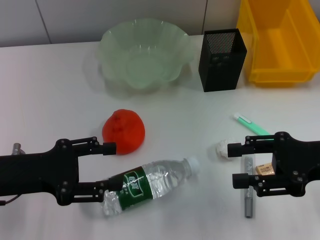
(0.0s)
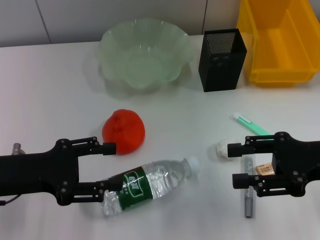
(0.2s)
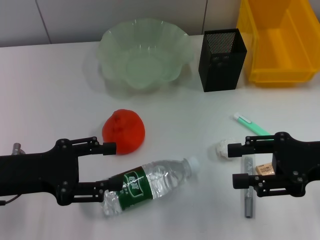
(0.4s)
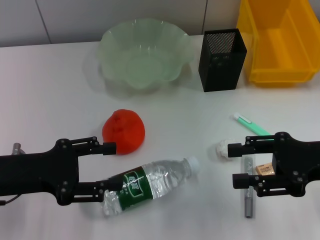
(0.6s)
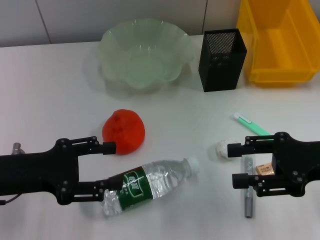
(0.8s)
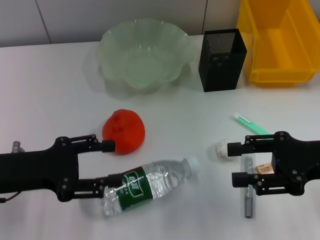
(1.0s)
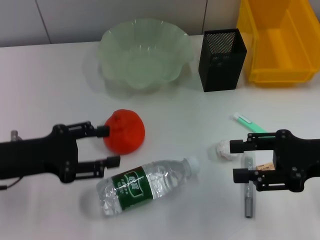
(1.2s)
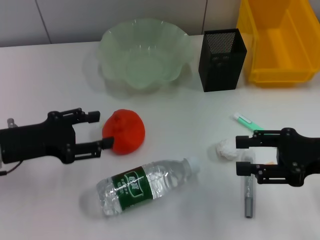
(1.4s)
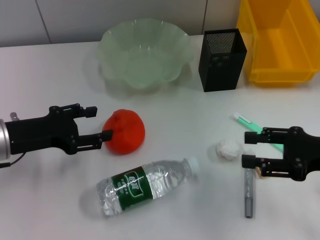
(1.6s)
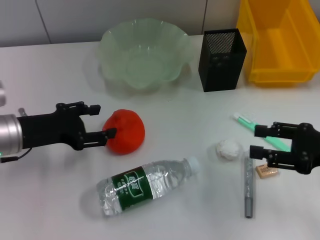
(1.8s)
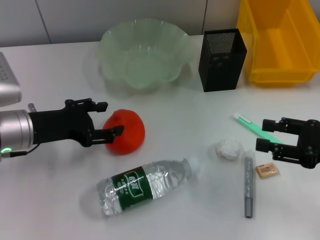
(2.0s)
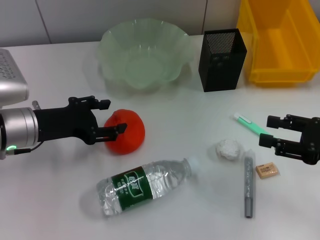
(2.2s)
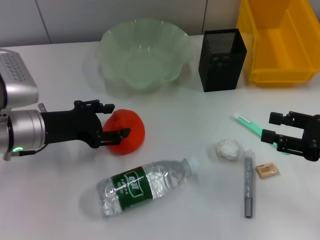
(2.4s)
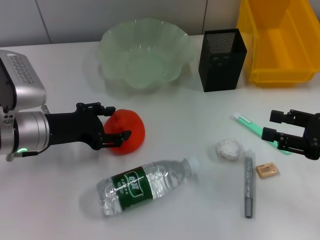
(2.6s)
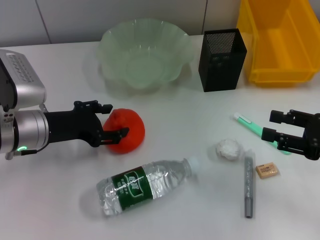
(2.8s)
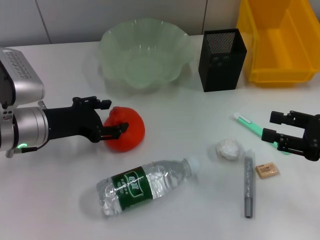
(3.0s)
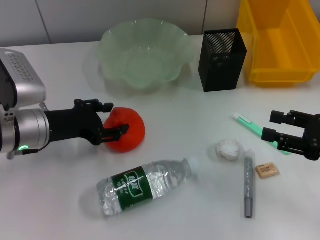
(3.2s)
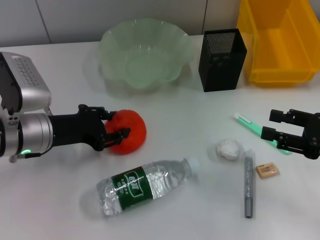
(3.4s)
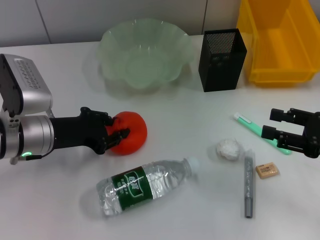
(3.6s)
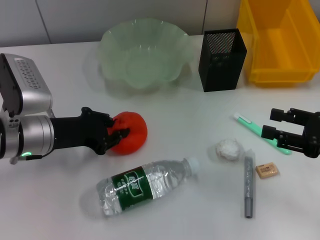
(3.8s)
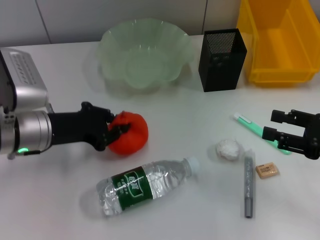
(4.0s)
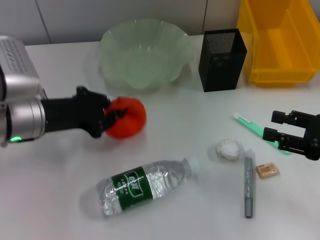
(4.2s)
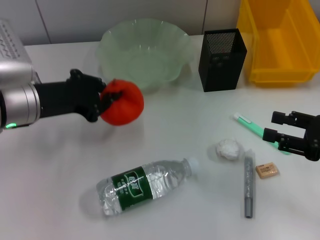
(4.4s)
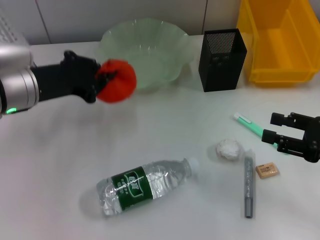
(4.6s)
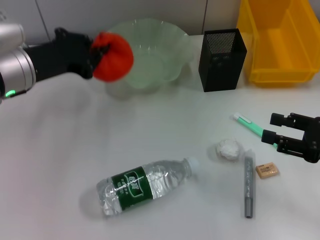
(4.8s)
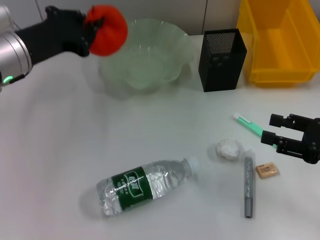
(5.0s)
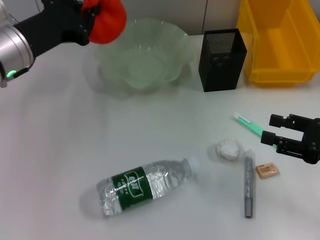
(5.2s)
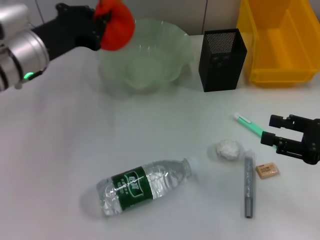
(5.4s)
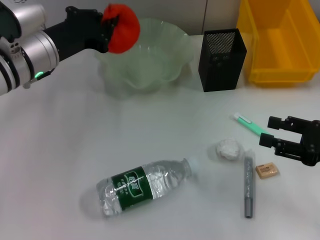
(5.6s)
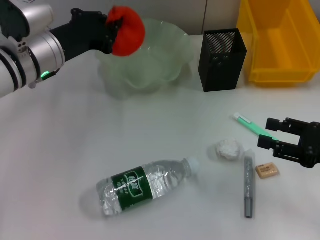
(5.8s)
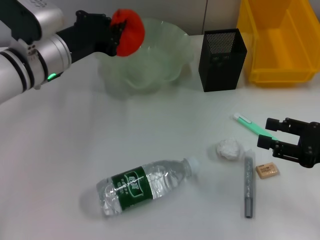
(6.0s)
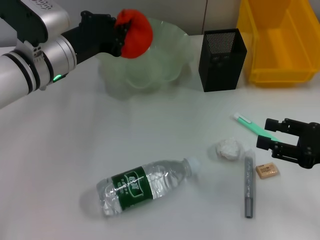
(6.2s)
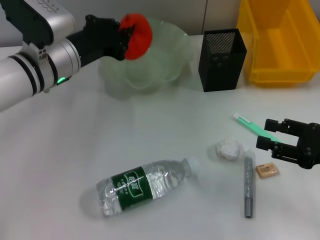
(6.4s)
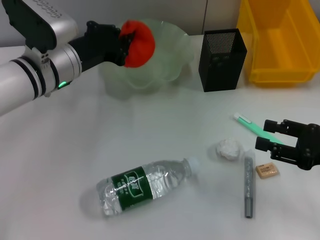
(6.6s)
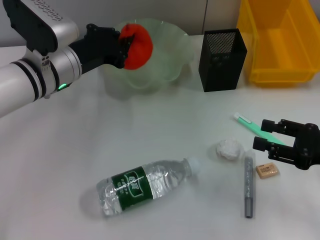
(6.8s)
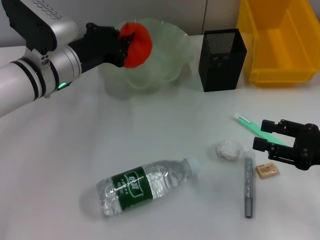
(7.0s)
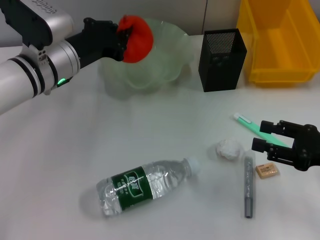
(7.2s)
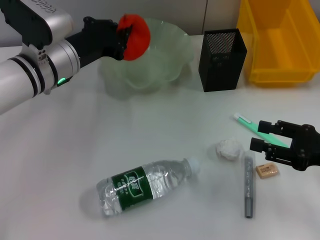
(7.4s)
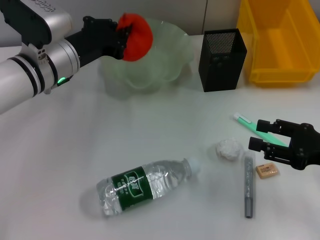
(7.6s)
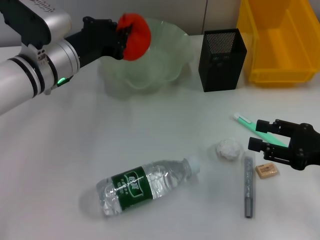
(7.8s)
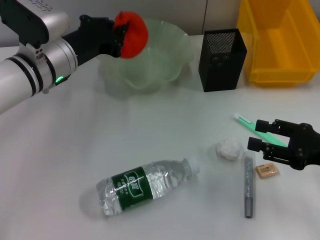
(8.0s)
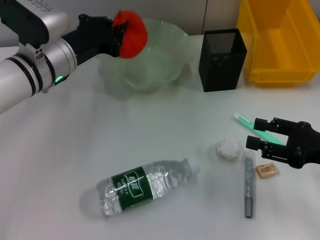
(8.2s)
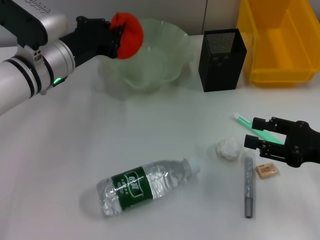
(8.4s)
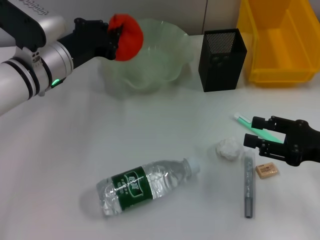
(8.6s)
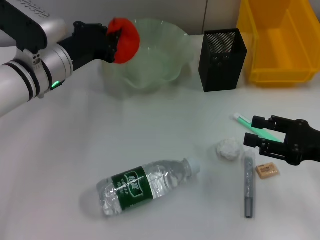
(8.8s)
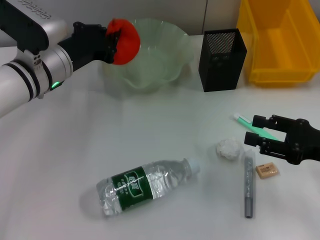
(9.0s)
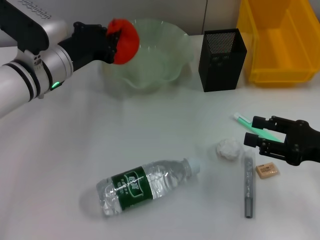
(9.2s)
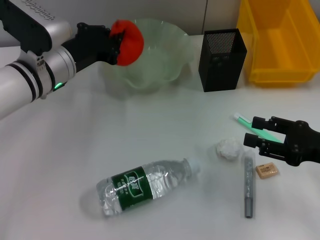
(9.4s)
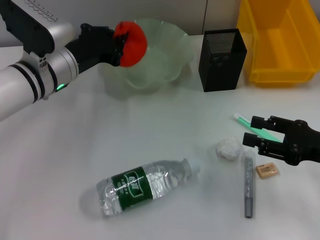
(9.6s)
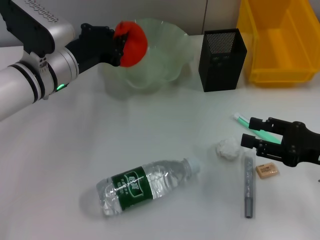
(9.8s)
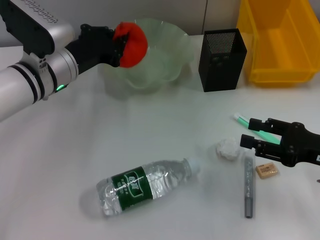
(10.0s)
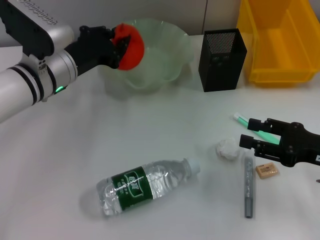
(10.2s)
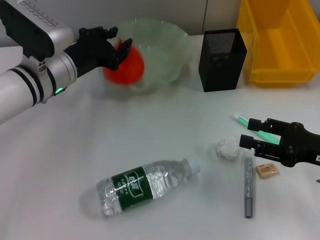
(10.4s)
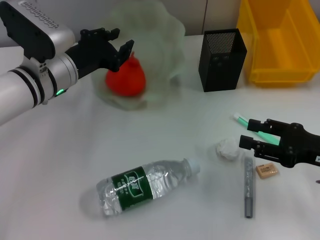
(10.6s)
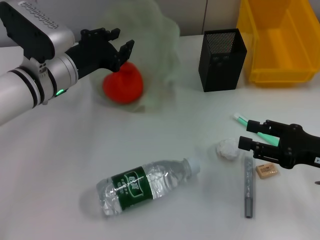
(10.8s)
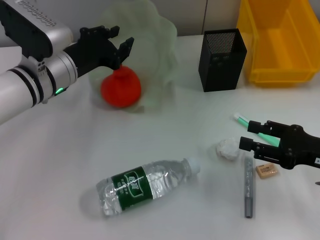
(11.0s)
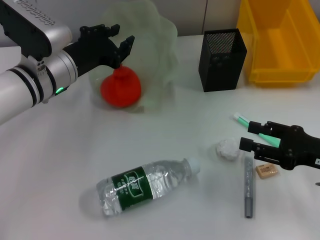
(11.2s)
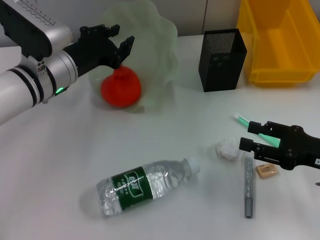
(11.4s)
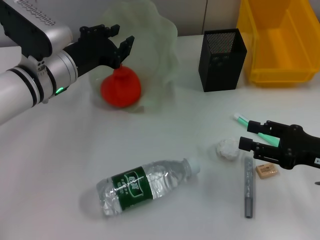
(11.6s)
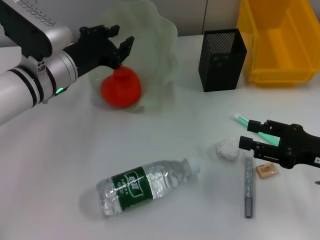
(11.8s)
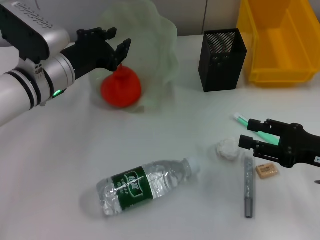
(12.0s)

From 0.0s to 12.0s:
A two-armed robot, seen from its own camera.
Step, from 0.0s to 3.8s: Grab the orange with the left hand.
Step, from 4.0s to 10.8s: Place the orange into the fruit bowl with the left hand.
From 0.0s to 1.6s: The left gripper heads forward, covering roughly 5 cm.
From 1.6s to 3.0s: The left gripper changes place by some 5 cm.
From 3.0s to 4.4s: The left gripper closes up.
From 4.4s to 6.0s: The left gripper moves forward, roughly 5 cm.
From 6.0s to 9.0s: There are only small adjustments of the grippers.
From 9.0s to 12.0s: Neither gripper changes place.

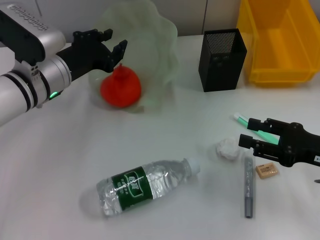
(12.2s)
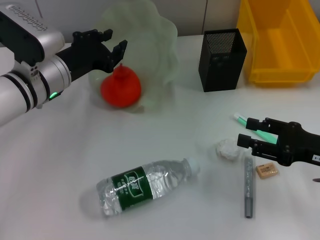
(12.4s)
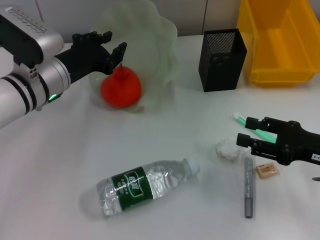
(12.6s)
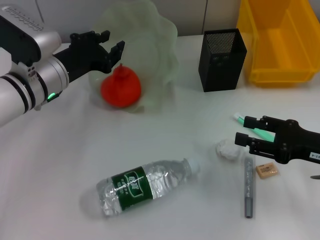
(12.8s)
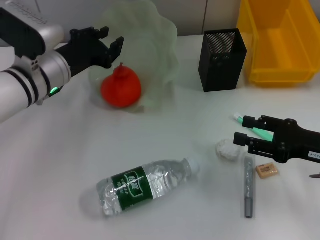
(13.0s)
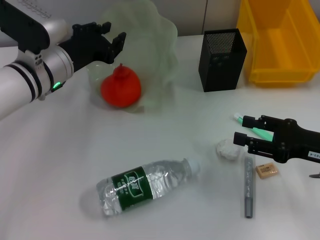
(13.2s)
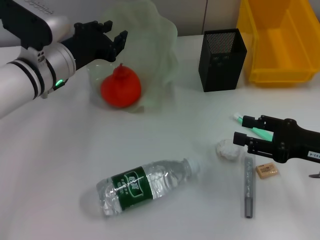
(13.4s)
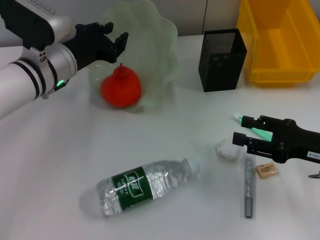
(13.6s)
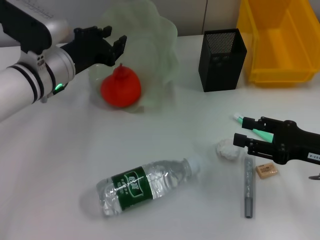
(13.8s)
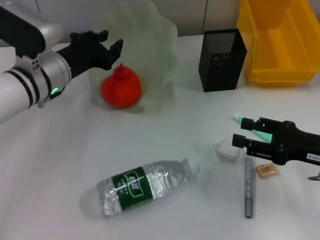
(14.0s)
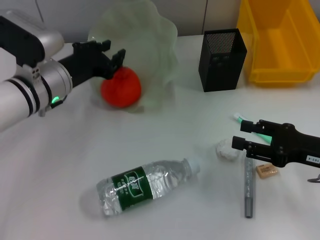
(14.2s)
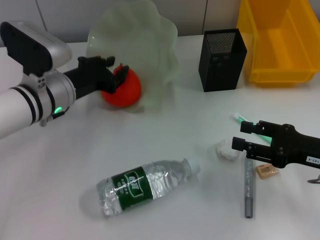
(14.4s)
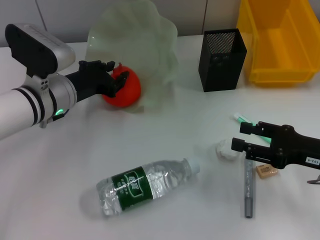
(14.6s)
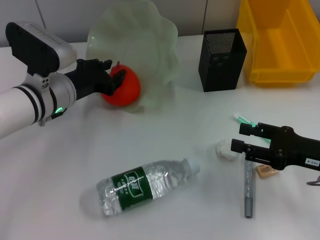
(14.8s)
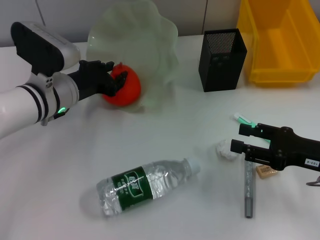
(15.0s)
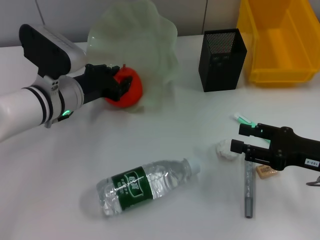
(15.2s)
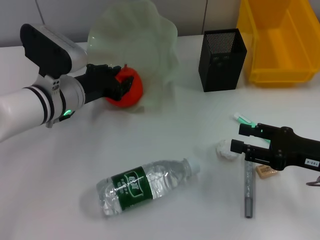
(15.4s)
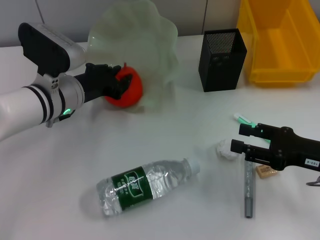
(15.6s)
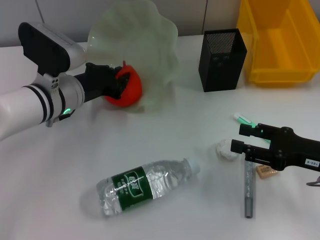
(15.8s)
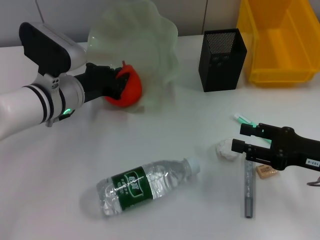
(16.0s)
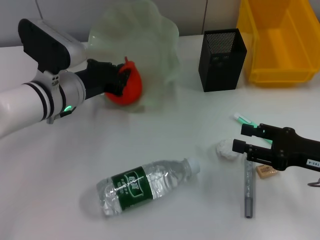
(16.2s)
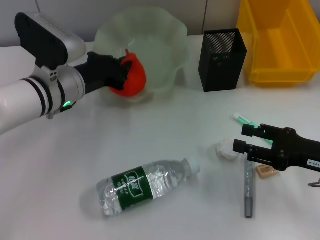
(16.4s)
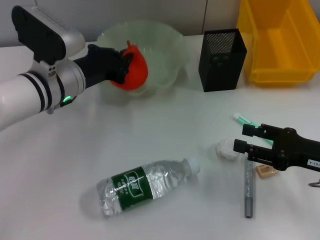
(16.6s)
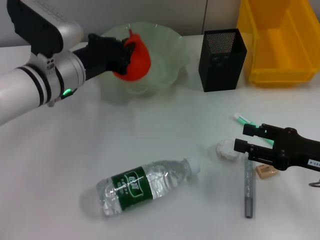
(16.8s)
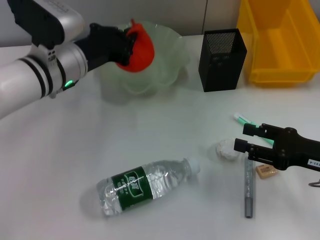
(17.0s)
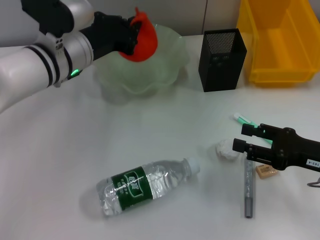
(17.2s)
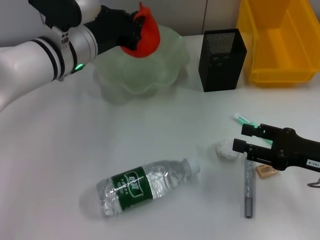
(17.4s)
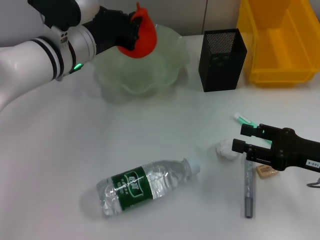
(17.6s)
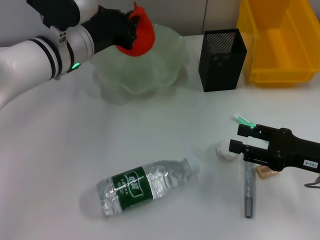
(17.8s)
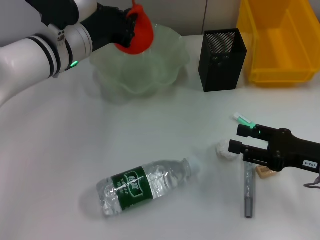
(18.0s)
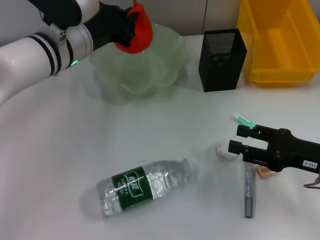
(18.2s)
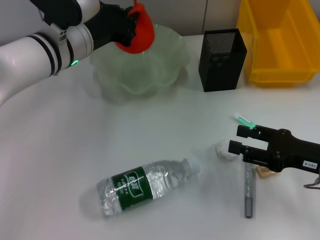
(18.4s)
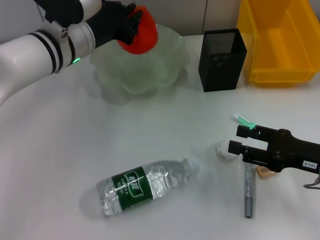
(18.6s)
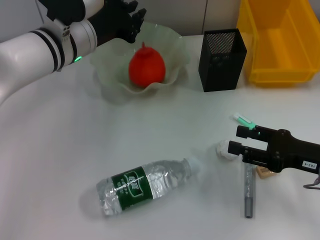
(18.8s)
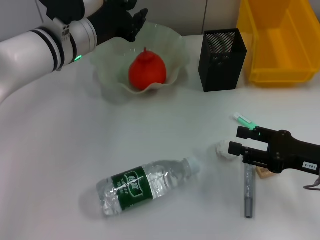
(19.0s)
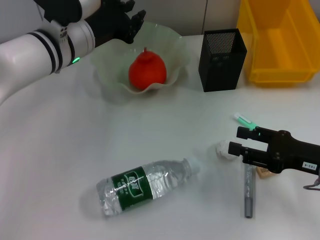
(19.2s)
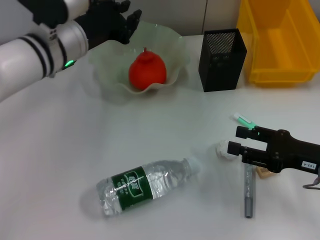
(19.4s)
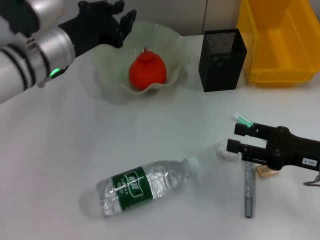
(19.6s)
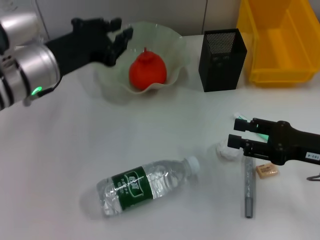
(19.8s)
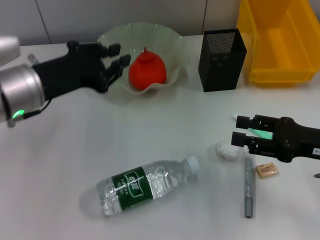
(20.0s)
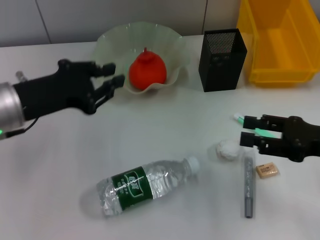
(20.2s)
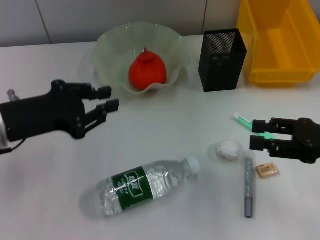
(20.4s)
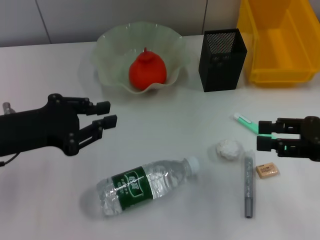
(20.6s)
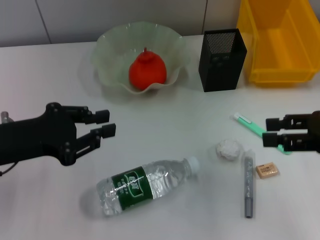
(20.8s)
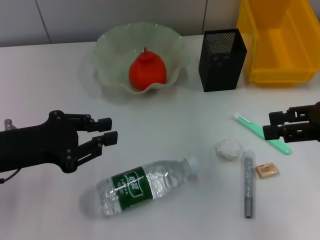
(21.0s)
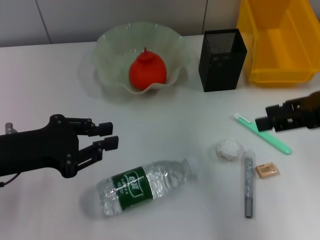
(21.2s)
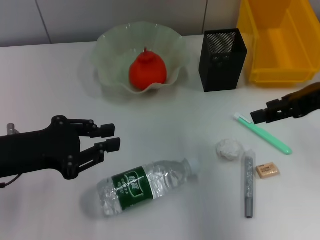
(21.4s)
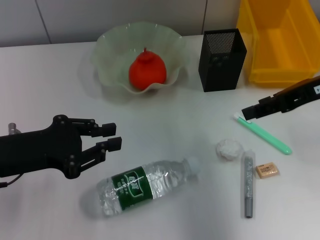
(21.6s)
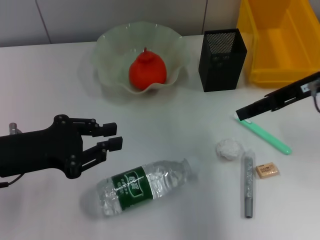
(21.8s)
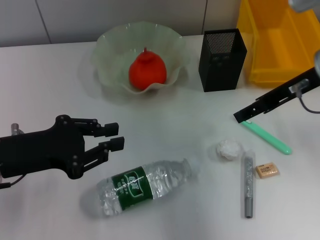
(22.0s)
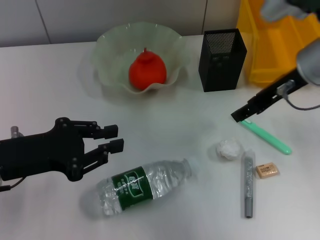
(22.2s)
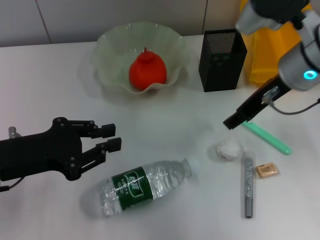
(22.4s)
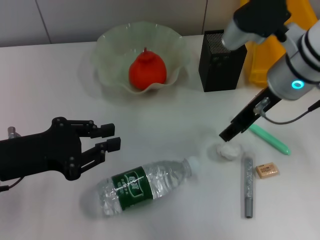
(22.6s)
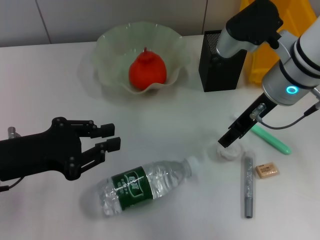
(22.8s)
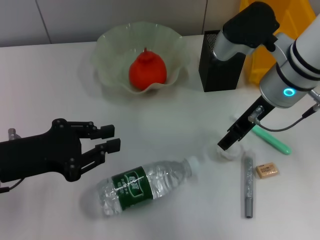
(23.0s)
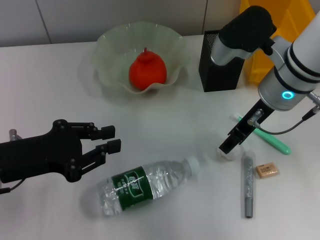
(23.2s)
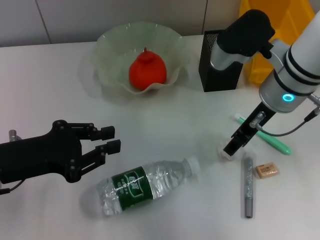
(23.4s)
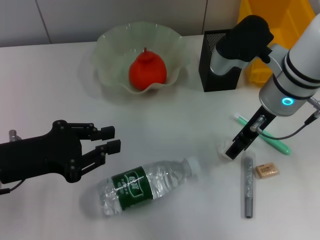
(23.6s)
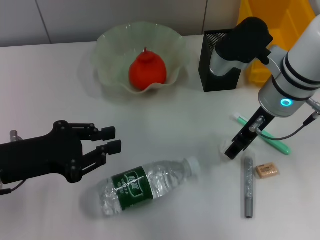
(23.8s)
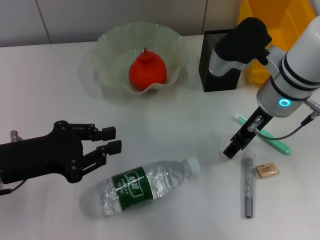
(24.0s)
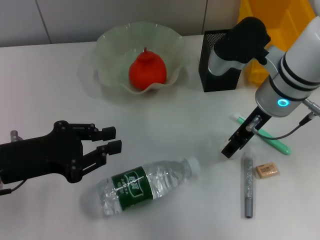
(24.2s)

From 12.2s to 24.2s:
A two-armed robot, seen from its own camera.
Step, from 12.2s to 16.0s: Grab the orange with the left hand.
Step, from 16.2s to 18.6s: Place the orange into the fruit bowl with the left hand.
From 12.2s to 15.2s: The grippers move only a little.
From 15.2s to 16.6s: The left gripper closes up.
From 16.6s to 18.2s: The left gripper shifts by approximately 5 cm.
From 18.2s to 19.8s: The left gripper is displaced backward by approximately 5 cm.
From 19.8s to 21.2s: The left gripper goes roughly 10 cm backward and to the left, while the right gripper heads upward, covering roughly 15 cm.
From 21.2s to 22.6s: The right gripper goes some 15 cm to the left and forward.
From 22.6s to 24.2s: The grippers make only small movements.
